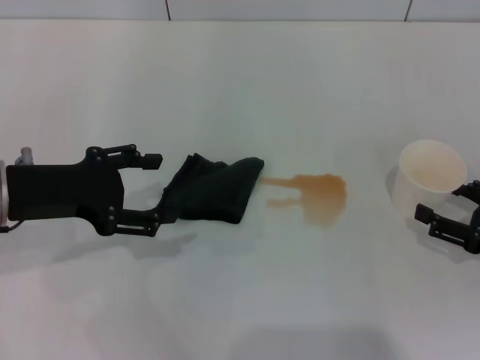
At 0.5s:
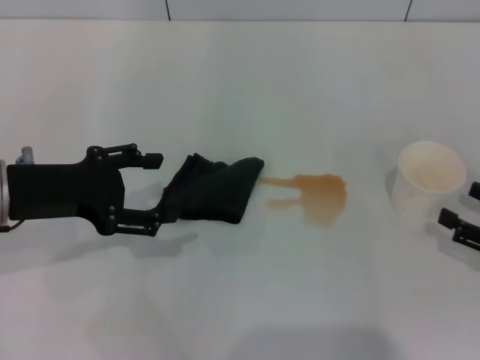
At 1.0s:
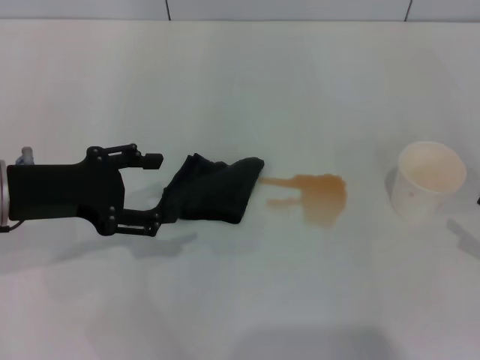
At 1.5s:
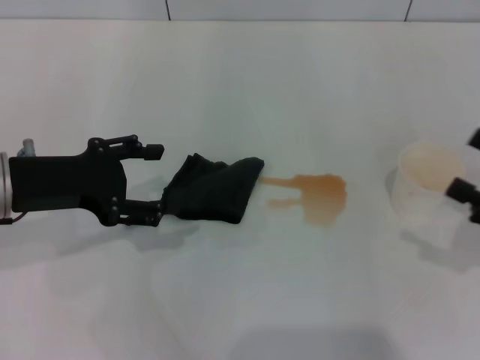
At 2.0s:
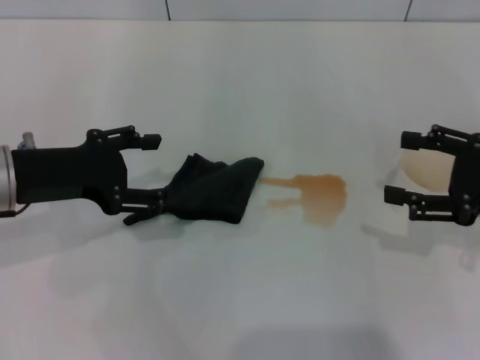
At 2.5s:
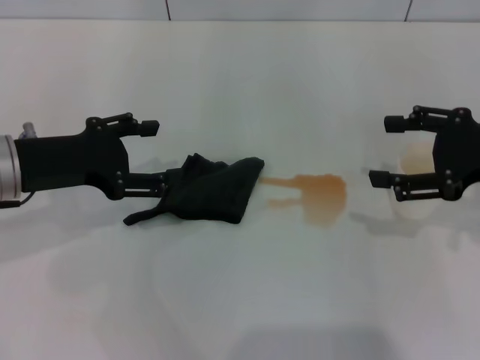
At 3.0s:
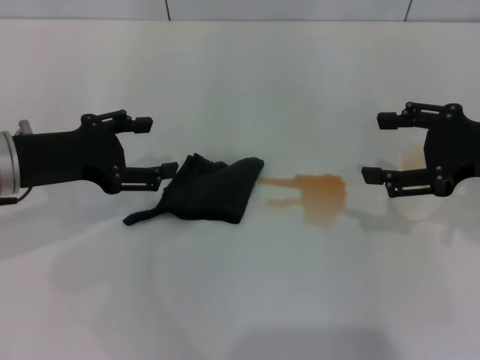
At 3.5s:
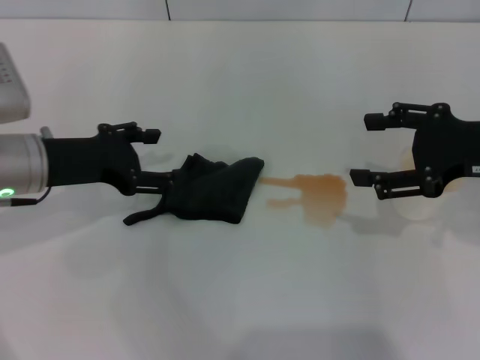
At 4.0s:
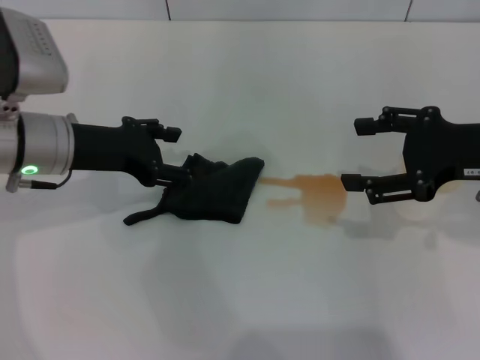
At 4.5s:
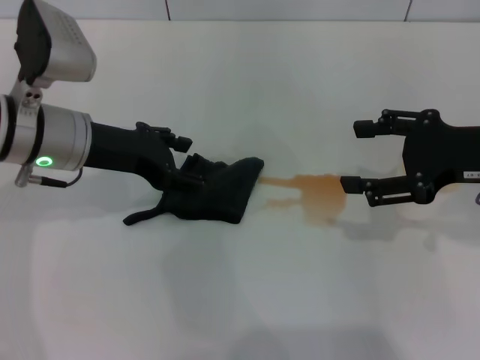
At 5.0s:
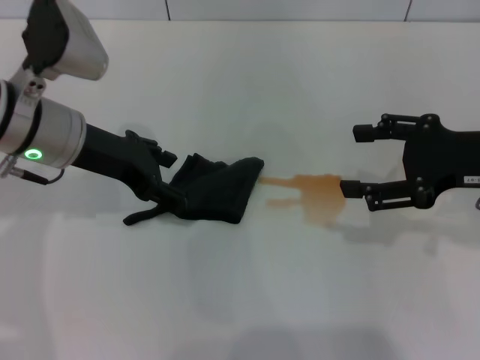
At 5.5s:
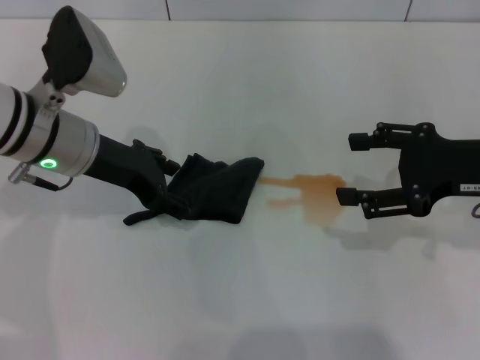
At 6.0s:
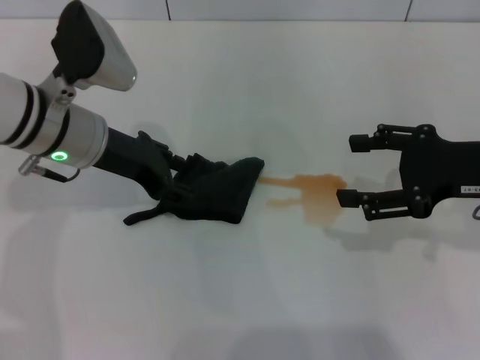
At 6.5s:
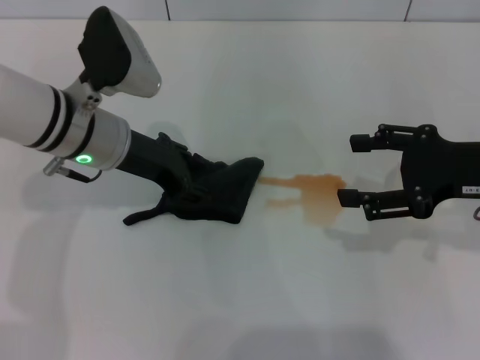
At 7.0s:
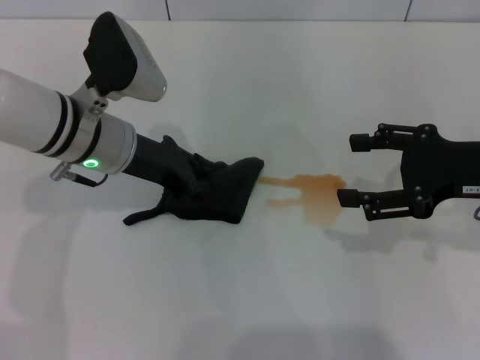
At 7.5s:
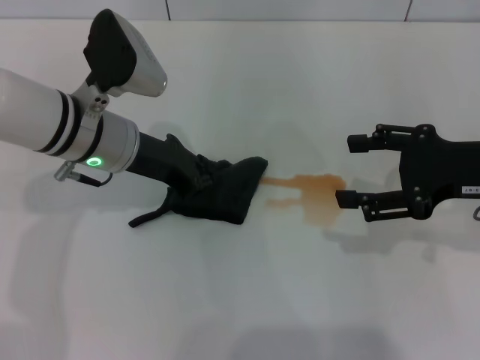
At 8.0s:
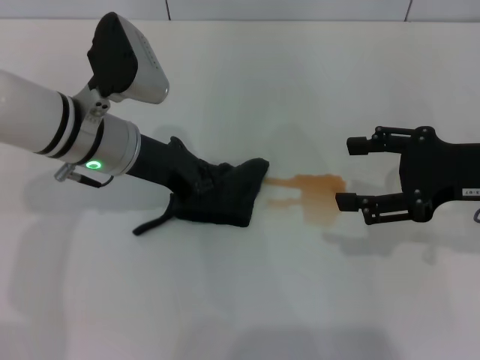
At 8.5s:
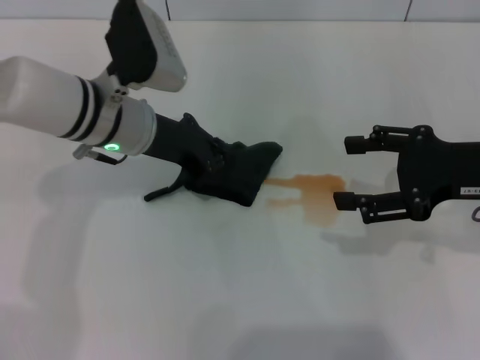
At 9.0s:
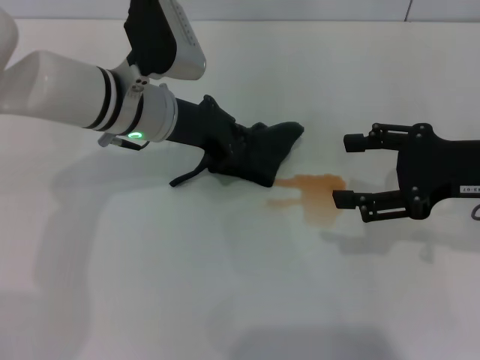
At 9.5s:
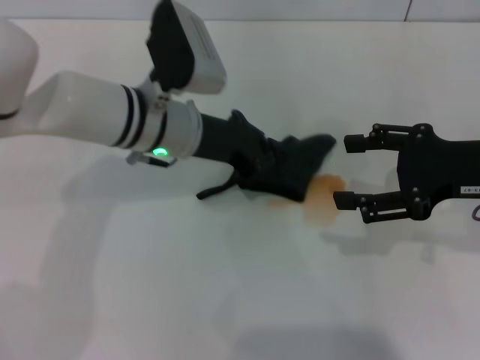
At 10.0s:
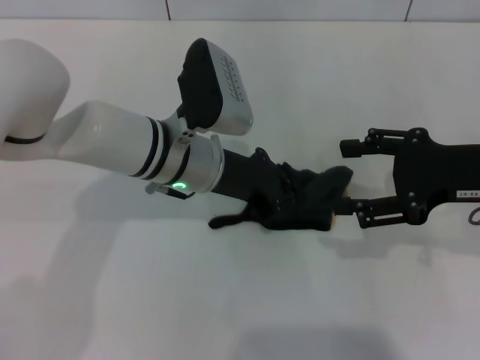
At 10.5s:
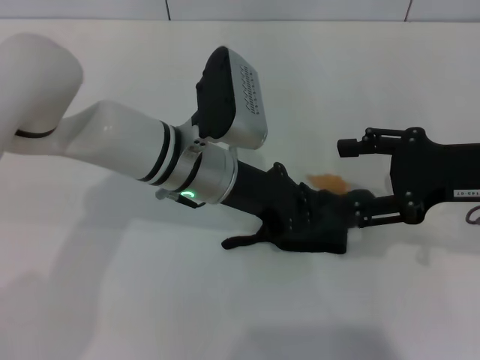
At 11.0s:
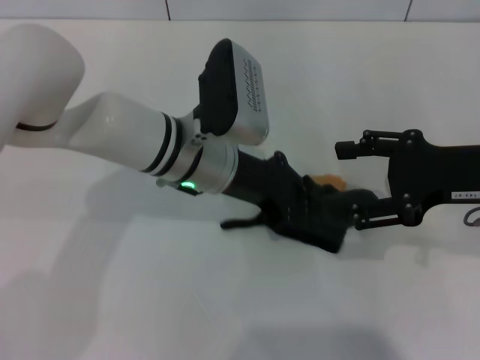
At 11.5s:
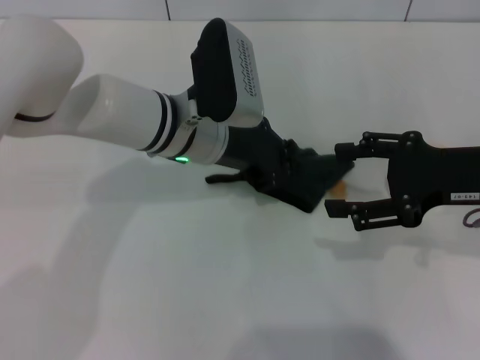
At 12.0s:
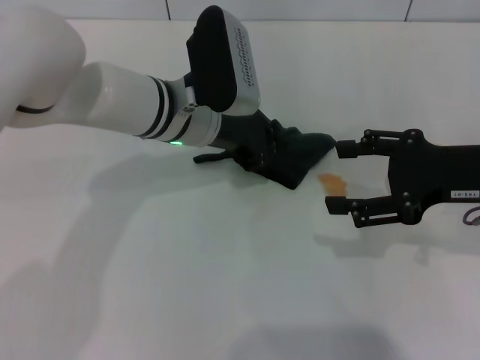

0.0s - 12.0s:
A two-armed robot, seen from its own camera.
Step, 1.5s - 7.5s: Grasp the rag with the left gripper.
0.0s - 2.0s: The right gripper goes about 10 cm upward.
2.0s - 4.0s: The left gripper shifts by some 5 cm. Meanwhile the right gripper changes place by about 5 cm.
4.0s - 6.0s: The grippers stay close to where they were, moving slightly.
6.0s - 8.0s: The left gripper closes up.
8.0s - 10.0s: The left gripper moves to the right, roughly 5 cm.

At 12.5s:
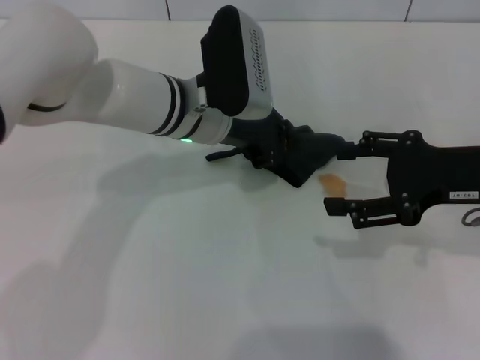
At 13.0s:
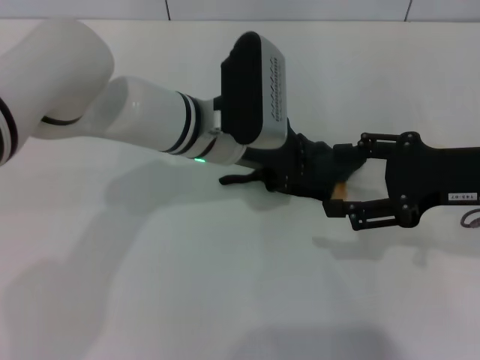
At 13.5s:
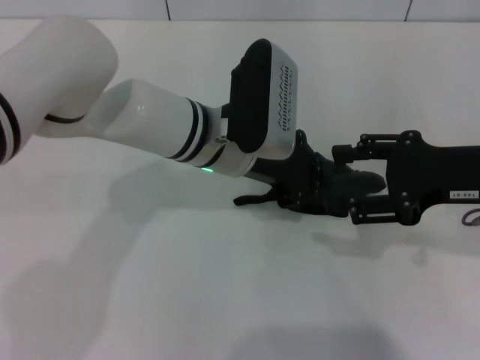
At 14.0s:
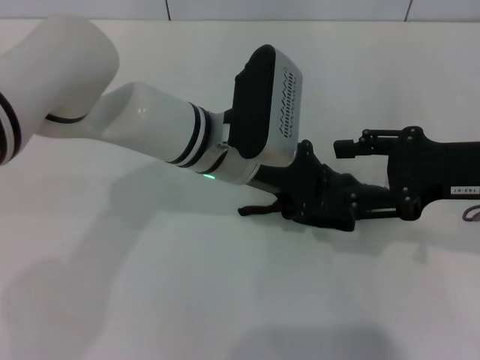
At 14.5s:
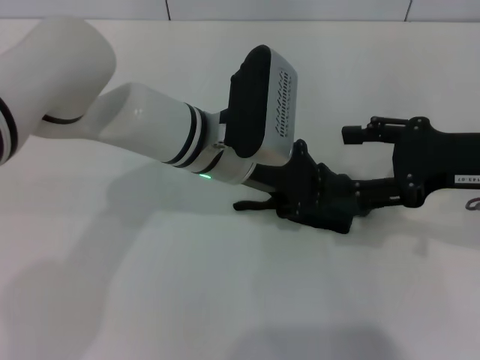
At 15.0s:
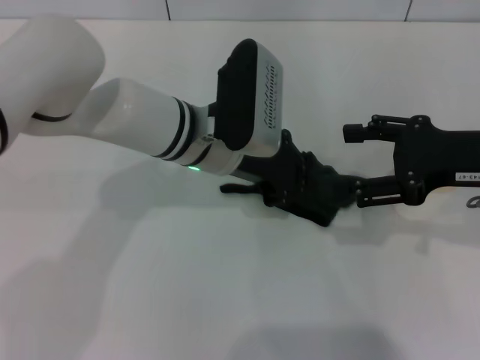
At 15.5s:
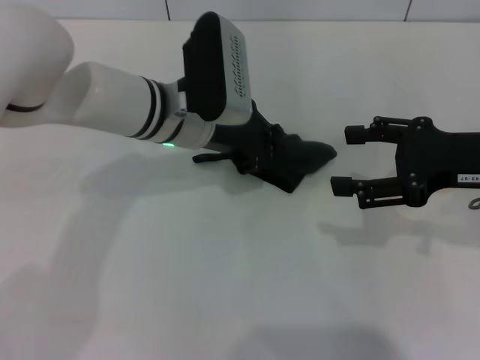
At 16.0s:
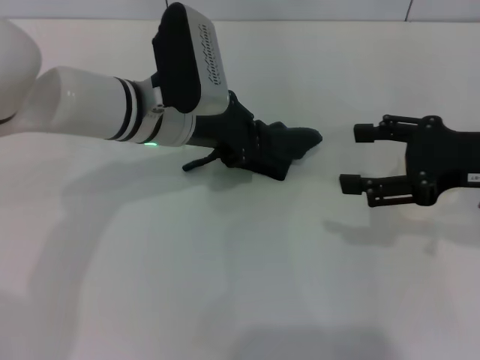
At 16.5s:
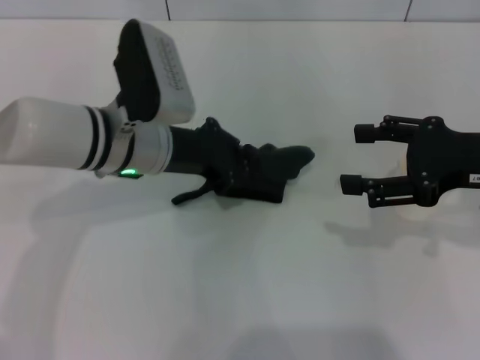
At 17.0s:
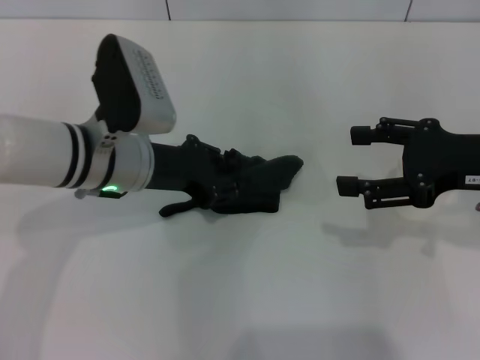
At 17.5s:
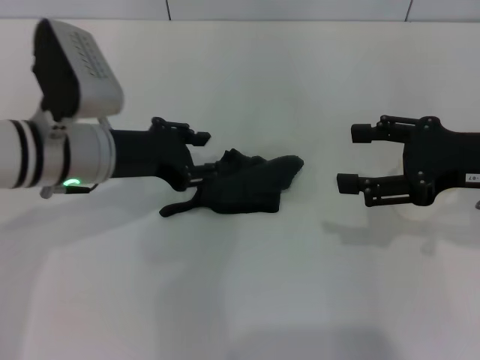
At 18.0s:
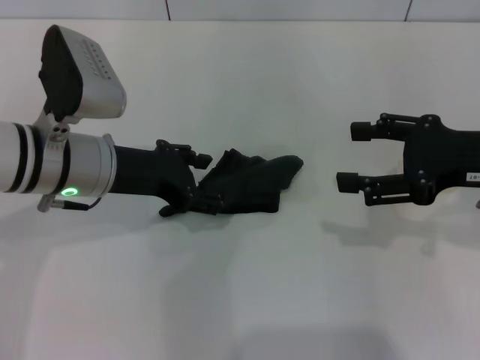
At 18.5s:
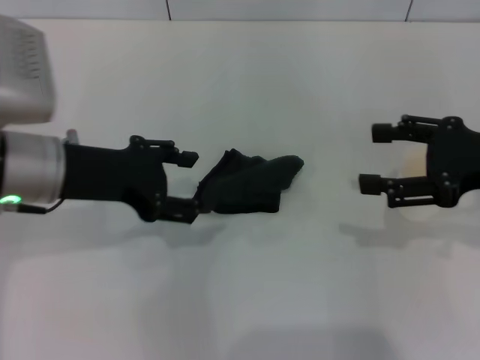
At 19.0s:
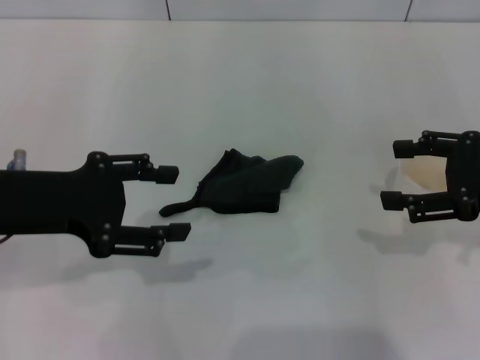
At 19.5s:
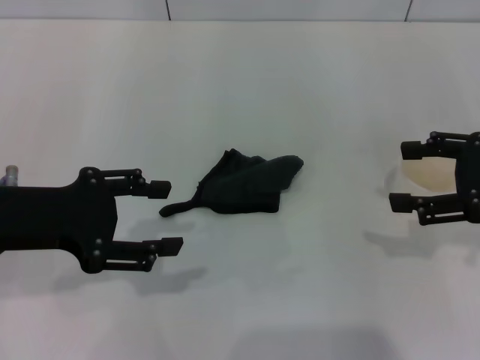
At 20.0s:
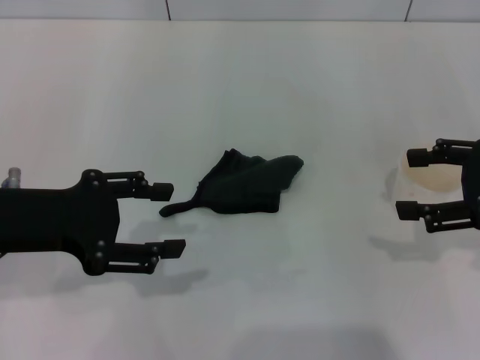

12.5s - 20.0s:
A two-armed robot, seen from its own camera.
Step, 12.5s - 16.5s: Wipe the stains off the table with the left gripper.
Step, 17.0s - 18.5s: Place the rag on the table with the left gripper.
12.5s - 14.5s: The grippers stay close to where they were, moving slightly.
14.5s - 16.5s: The right gripper opens up. Meanwhile the left gripper shifts roughly 10 cm to the left.
16.5s - 18.0s: The left gripper changes place by approximately 5 cm, and opens.
18.0s - 20.0s: The left gripper is displaced to the left and backward by some 10 cm.

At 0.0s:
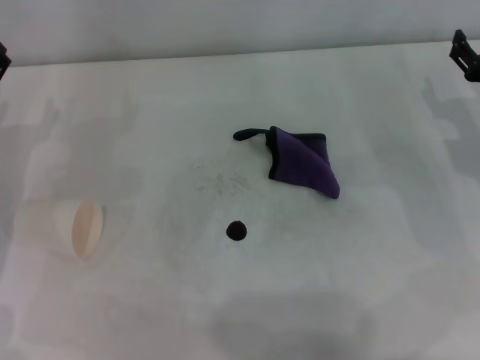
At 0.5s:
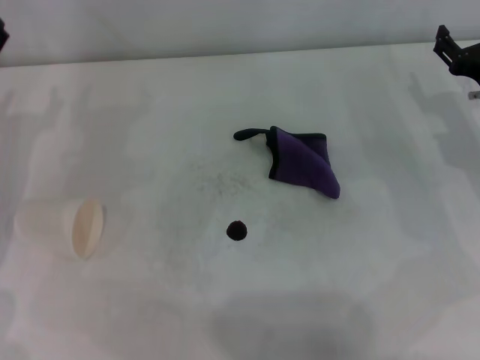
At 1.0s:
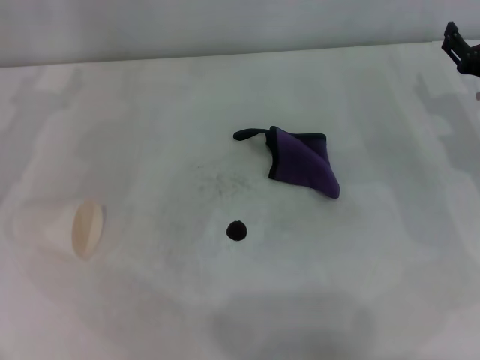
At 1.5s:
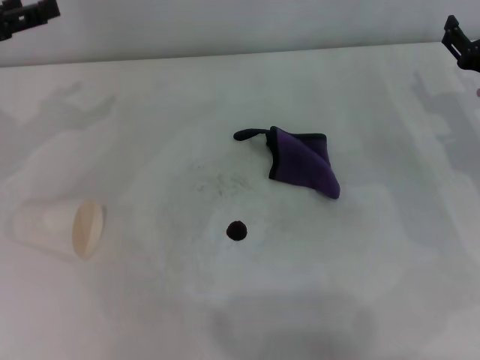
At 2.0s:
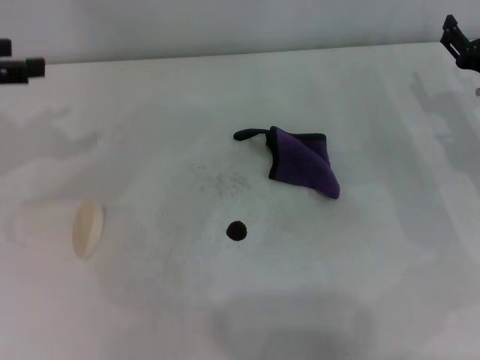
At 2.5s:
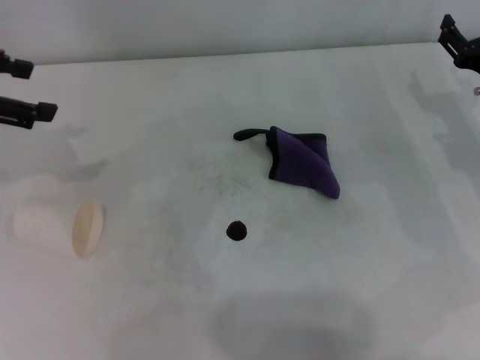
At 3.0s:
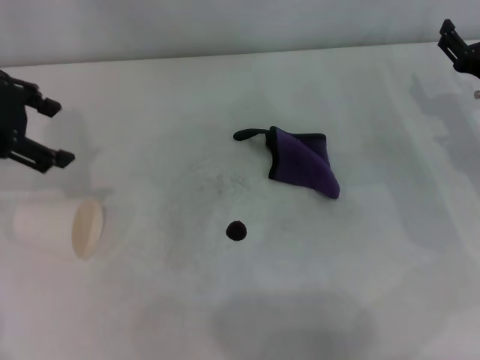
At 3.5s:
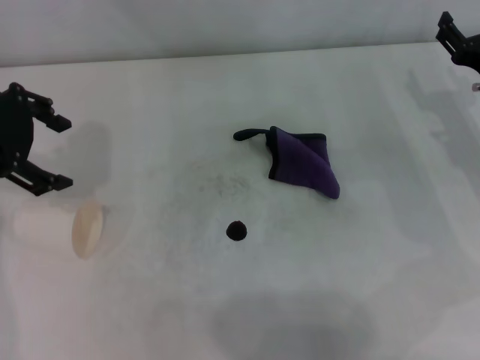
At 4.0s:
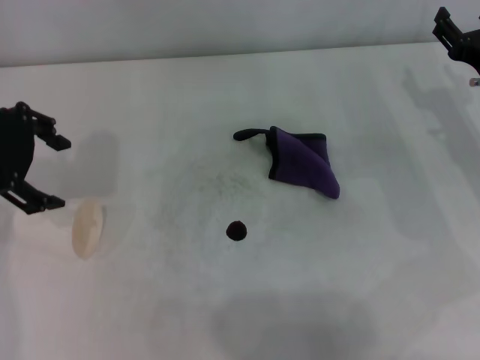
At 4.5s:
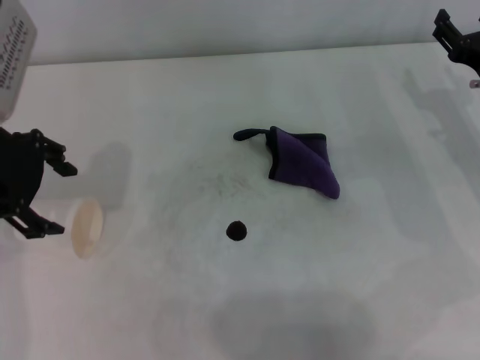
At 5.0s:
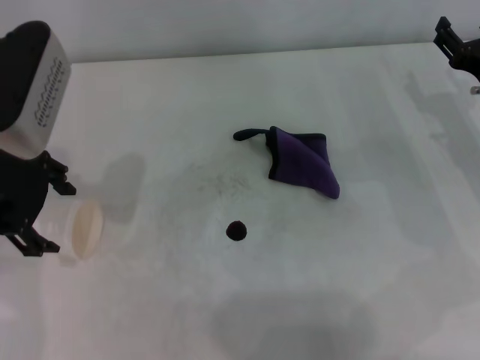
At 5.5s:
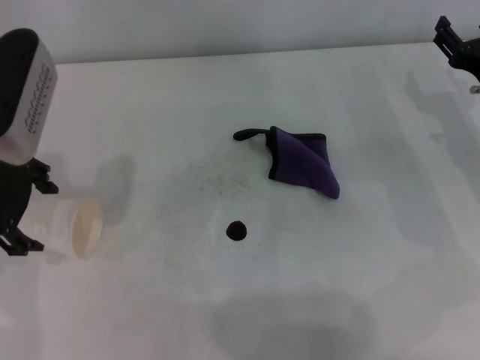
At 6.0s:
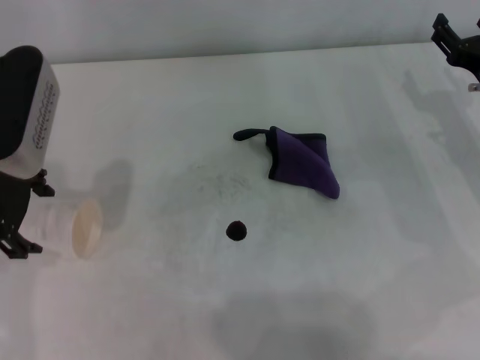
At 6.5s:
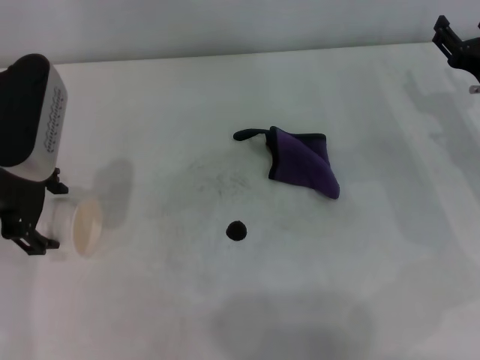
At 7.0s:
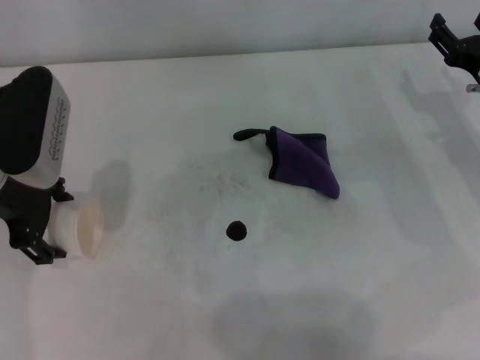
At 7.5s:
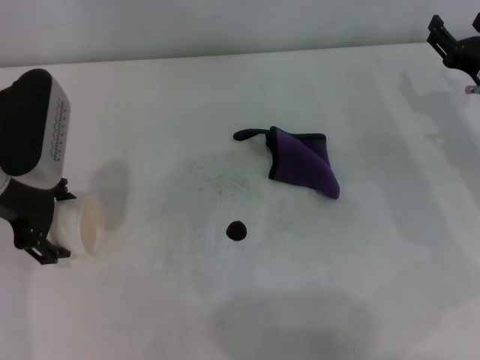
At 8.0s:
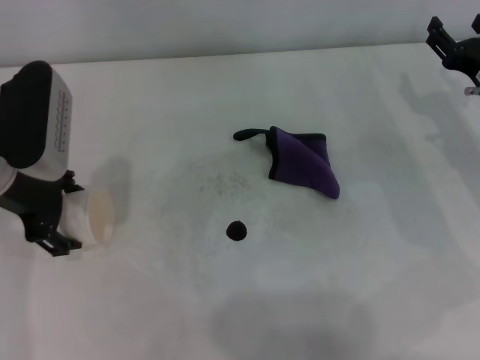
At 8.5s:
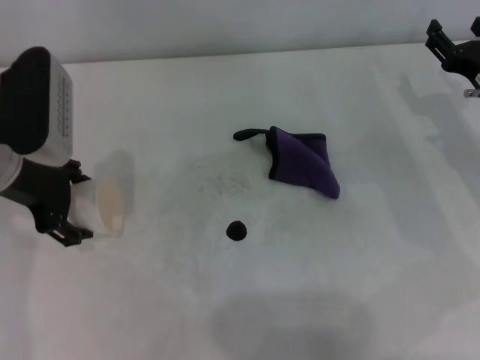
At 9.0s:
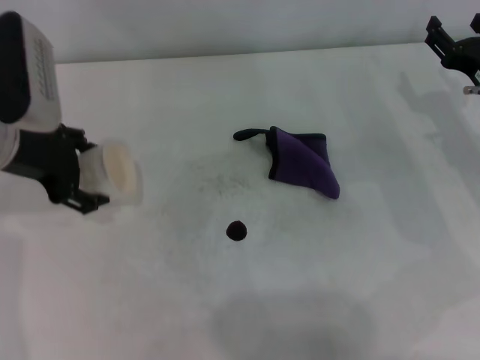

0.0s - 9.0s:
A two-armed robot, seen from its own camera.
Step, 0.0s - 7.5s: Grasp the paper cup with the left gripper.
0.0s - 2.0s: The left gripper heads upward, covering about 15 cm.
2.0s - 4.5s: The left gripper goes some 10 cm to the right.
4.5s - 7.0s: The left gripper shifts roughly 5 cm downward.
